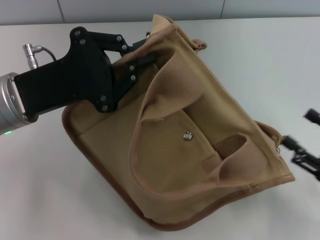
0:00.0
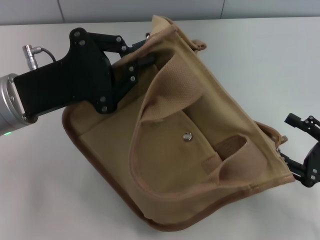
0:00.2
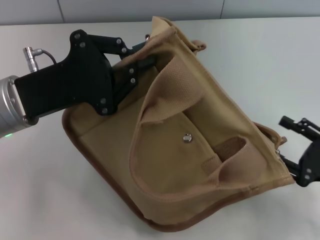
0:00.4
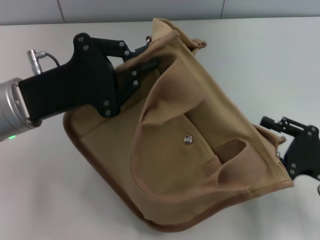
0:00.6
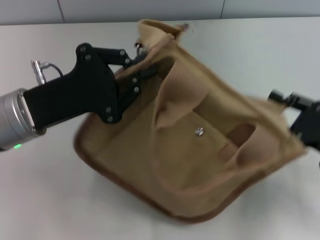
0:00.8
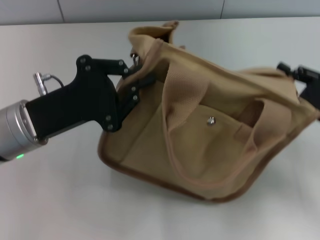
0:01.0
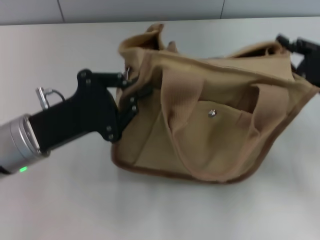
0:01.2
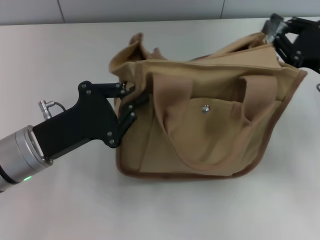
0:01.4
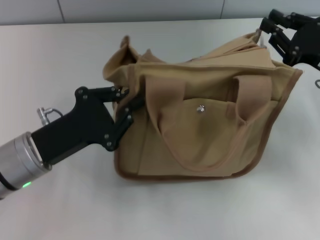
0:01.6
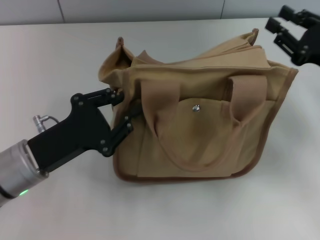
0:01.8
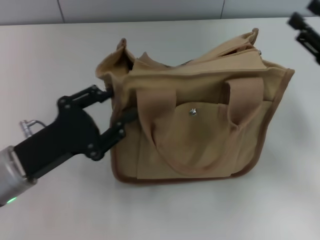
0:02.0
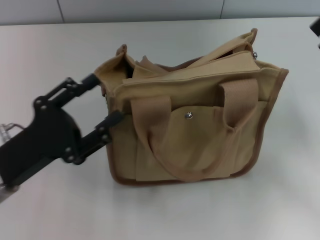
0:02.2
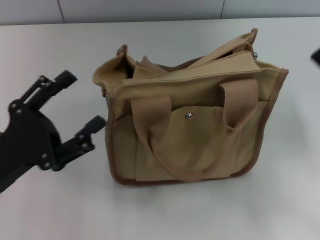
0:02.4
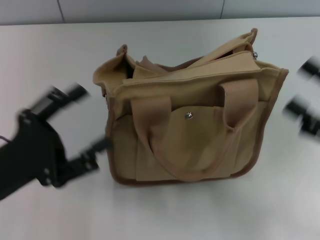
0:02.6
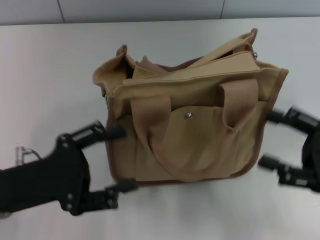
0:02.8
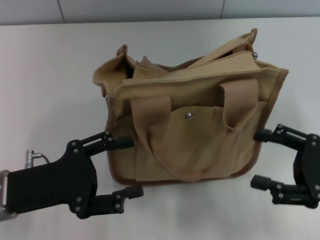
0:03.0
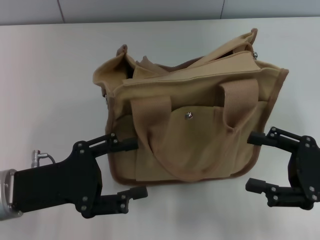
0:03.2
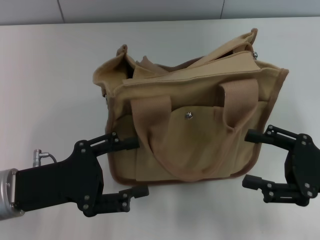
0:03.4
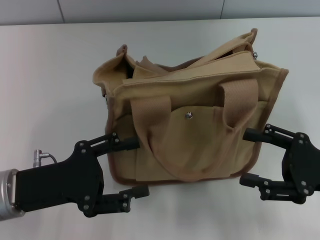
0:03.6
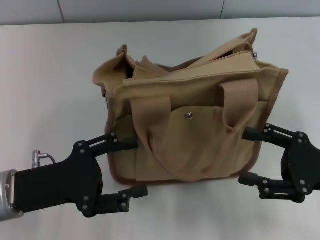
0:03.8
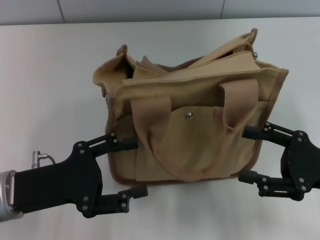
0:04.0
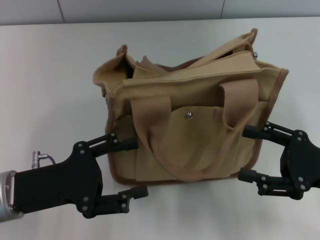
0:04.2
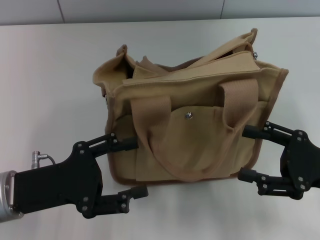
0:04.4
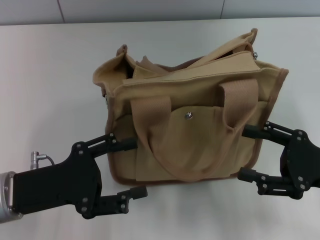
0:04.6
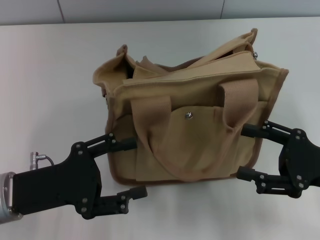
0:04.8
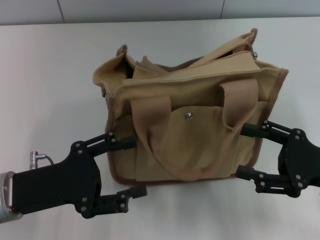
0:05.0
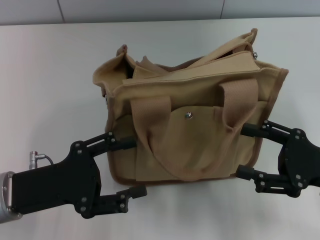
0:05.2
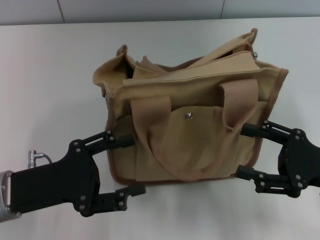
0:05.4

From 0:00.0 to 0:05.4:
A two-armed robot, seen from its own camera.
Step, from 0:00.0 to 0:02.2: Grab the bag with your left hand.
From 0:00.0 to 0:01.4: The left gripper heads downward, covering approximately 5 cm; the right gripper heads forward and upward, covering roughly 15 cm, and closes.
From 0:01.4 to 0:02.8: The right gripper is displaced backward by about 10 cm, and opens its fingers. The left gripper moves some 5 cm, and opens its fingers.
From 0:02.8 to 0:04.0: The grippers make only small movements.
From 0:04.0 to 0:05.4: The two grippers keep their place.

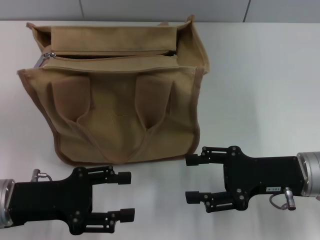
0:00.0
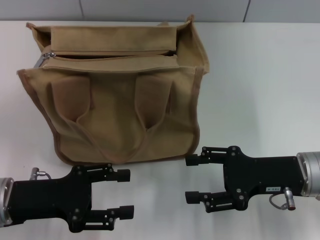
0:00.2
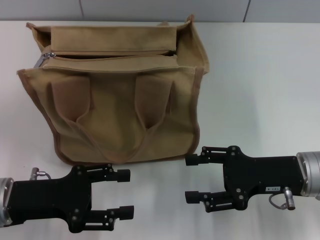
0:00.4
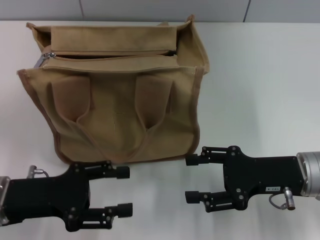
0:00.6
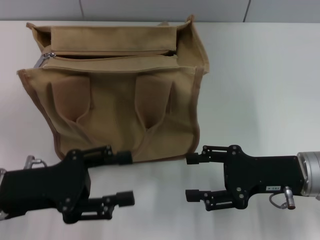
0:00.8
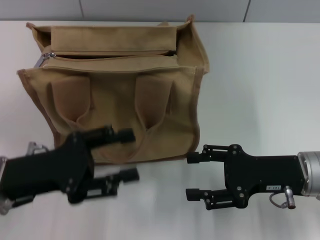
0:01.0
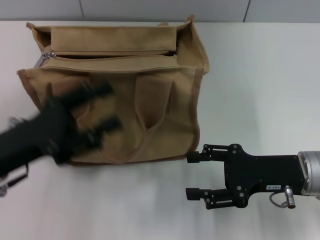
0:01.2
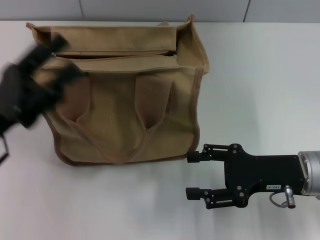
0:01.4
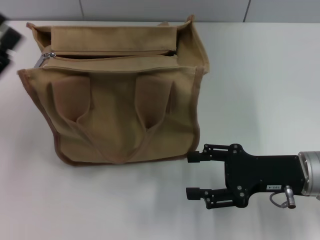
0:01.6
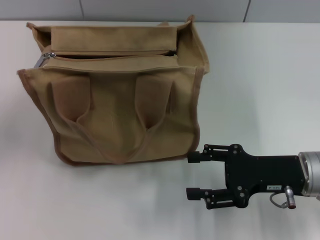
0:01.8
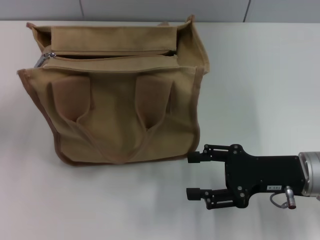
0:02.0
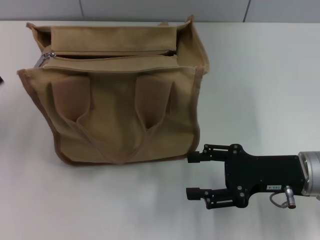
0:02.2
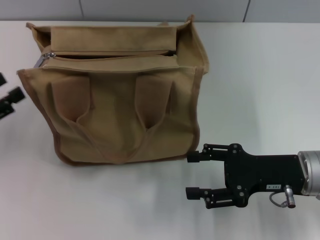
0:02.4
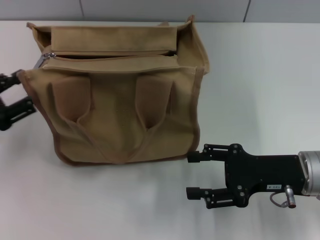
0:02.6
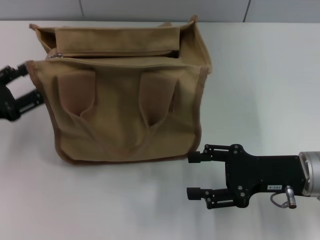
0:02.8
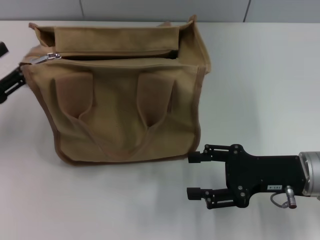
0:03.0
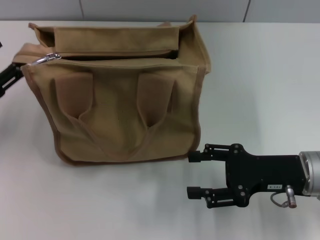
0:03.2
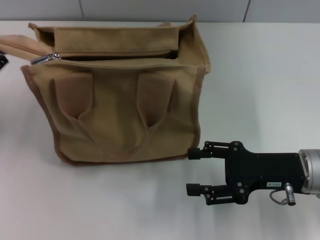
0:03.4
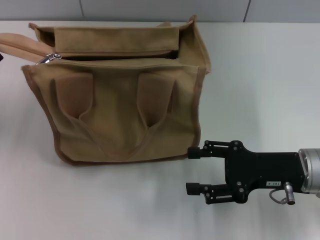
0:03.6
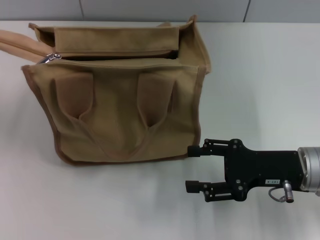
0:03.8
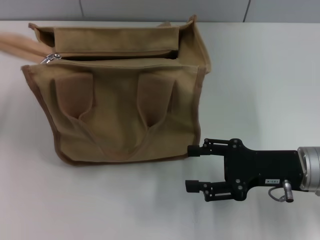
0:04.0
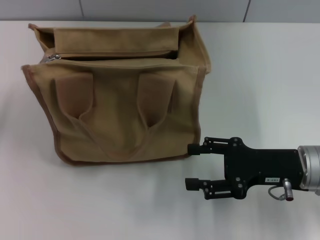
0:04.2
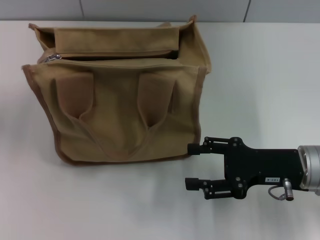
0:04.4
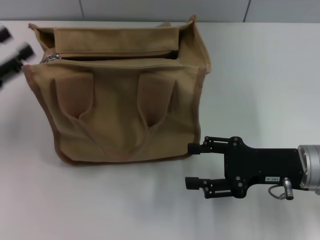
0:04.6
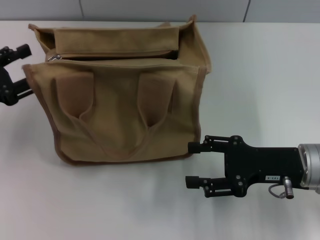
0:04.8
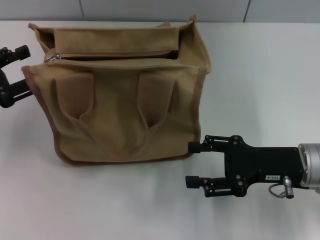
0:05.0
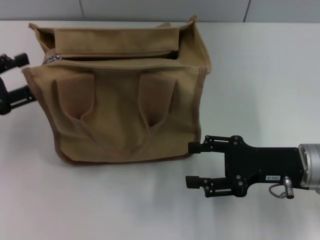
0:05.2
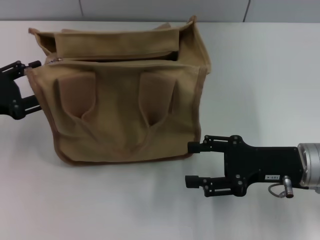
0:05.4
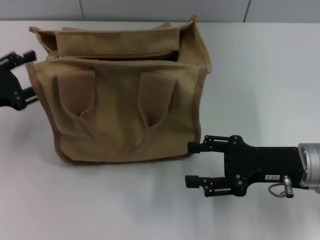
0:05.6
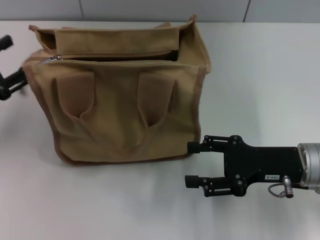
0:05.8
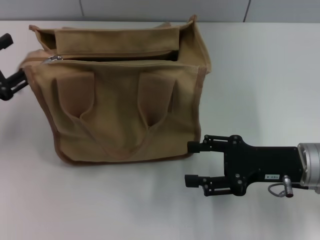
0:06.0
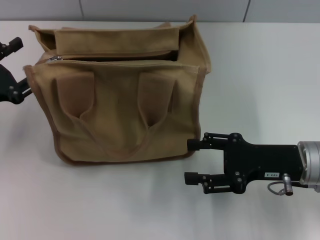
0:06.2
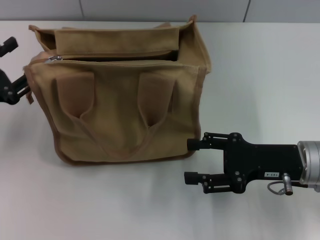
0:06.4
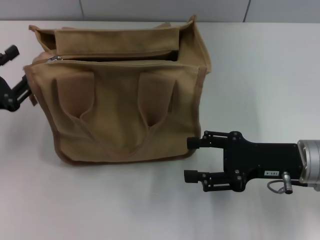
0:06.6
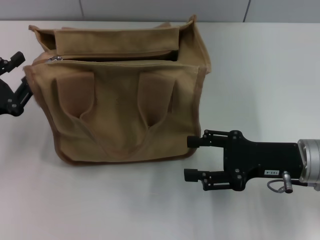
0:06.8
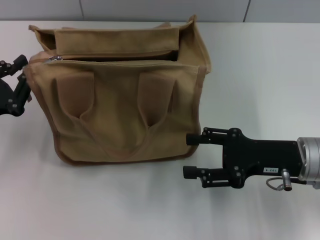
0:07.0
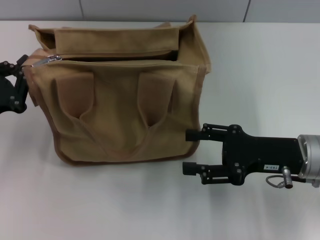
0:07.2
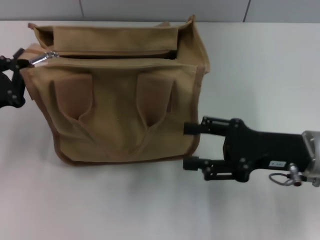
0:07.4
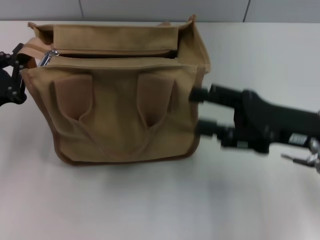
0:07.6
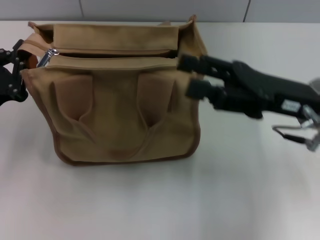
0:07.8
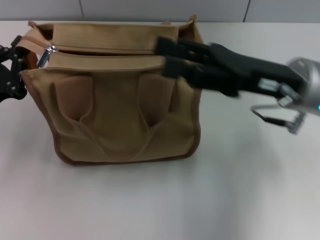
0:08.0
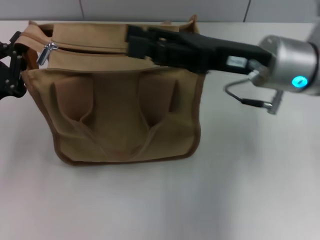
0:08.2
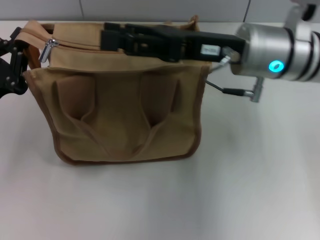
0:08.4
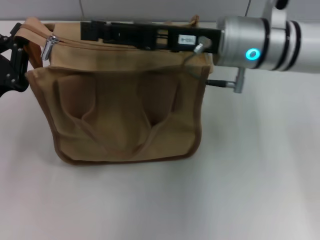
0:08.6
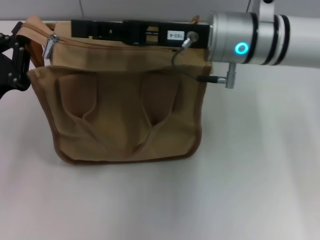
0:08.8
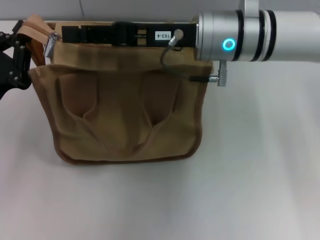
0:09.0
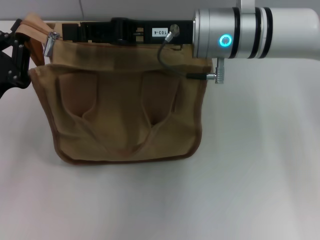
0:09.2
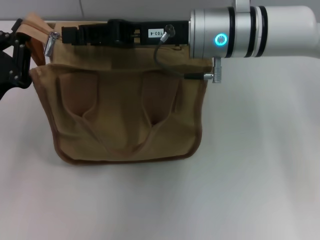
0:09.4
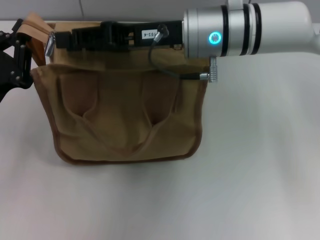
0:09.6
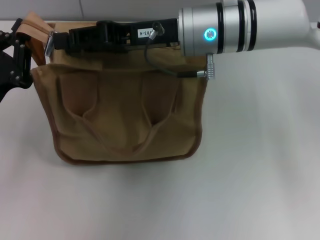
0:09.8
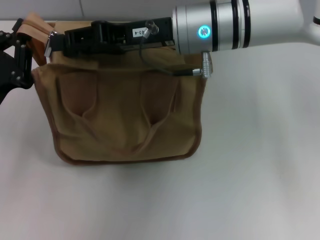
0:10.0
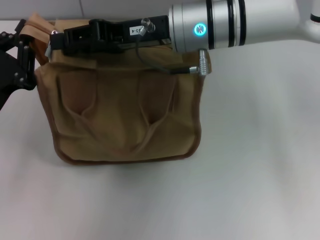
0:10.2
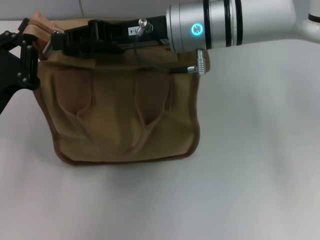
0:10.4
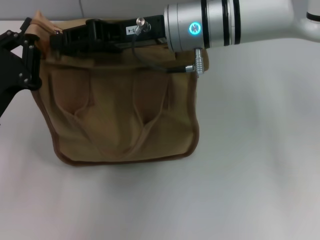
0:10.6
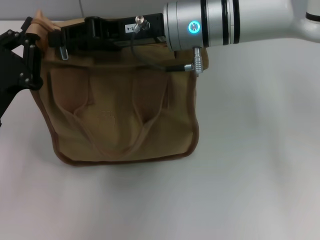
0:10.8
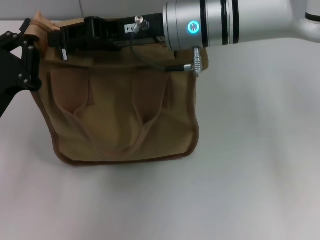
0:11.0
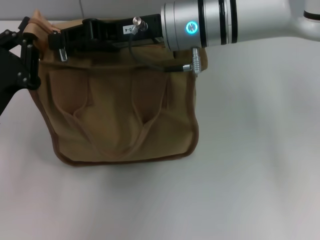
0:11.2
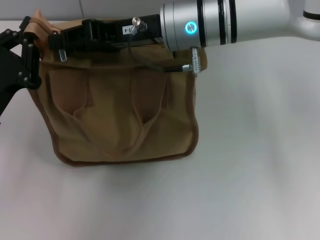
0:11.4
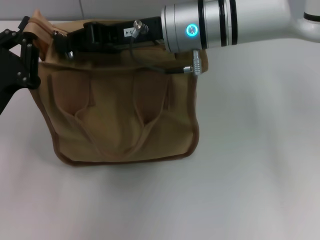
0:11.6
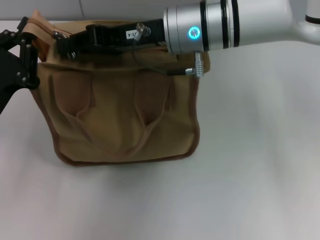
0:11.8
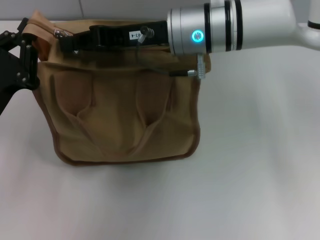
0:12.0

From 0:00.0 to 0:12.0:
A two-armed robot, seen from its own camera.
From 0:01.6 to 0:03.0: The left gripper moves to the left, some 5 cm.
From 0:06.0 to 0:07.6: The right gripper goes approximately 5 cm upward, while the left gripper closes its fingers.
From 0:07.6 to 0:09.0: The right gripper shifts approximately 20 cm to the left, forward and upward.
From 0:09.0 to 0:10.4: There are only small adjustments of the grippers.
From 0:10.4 to 0:12.0: The right gripper closes.

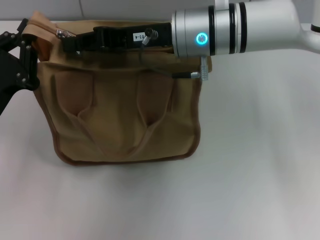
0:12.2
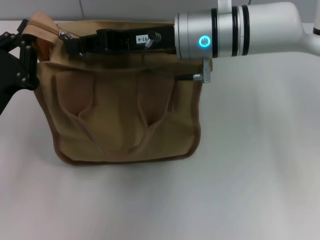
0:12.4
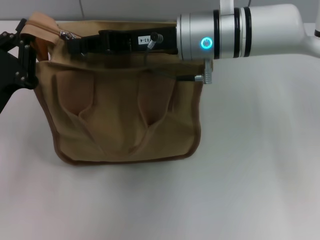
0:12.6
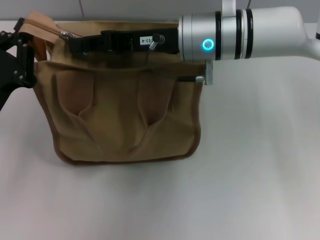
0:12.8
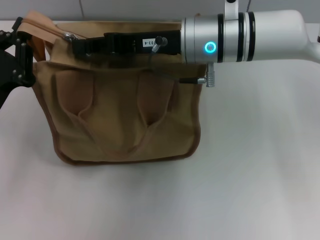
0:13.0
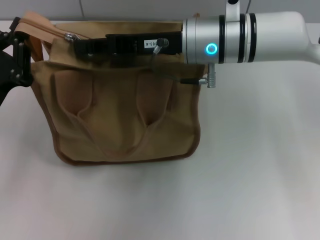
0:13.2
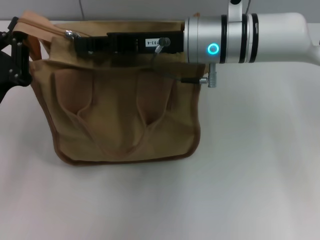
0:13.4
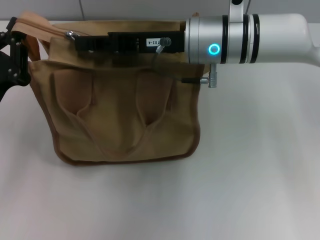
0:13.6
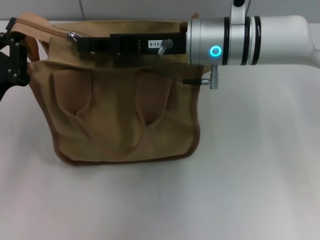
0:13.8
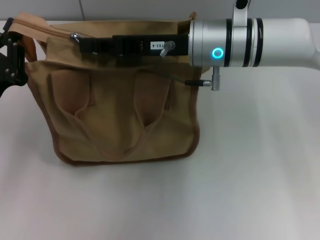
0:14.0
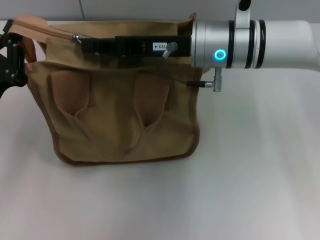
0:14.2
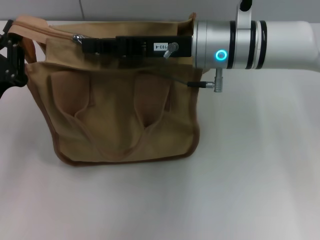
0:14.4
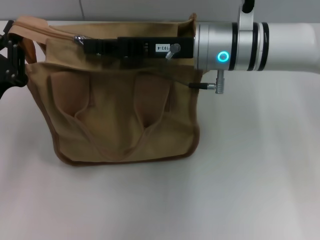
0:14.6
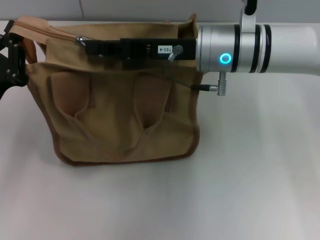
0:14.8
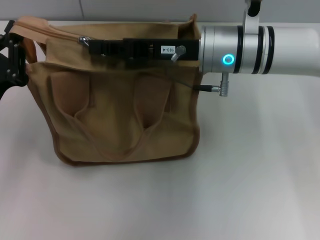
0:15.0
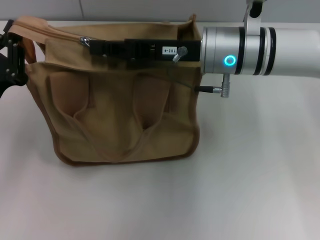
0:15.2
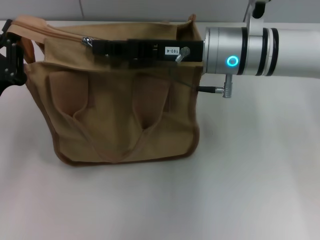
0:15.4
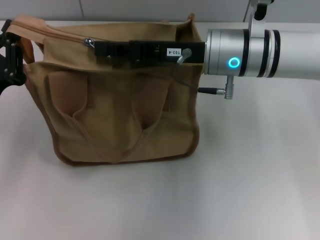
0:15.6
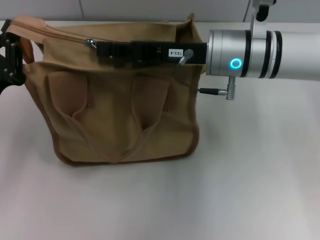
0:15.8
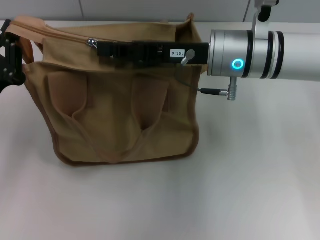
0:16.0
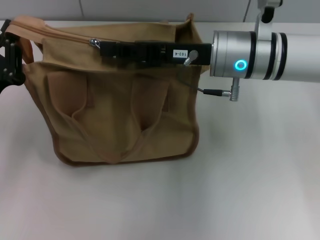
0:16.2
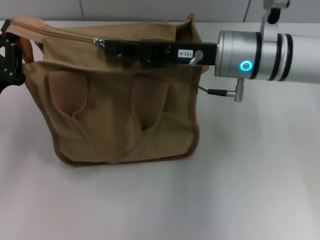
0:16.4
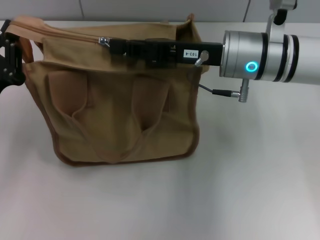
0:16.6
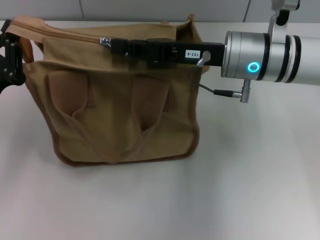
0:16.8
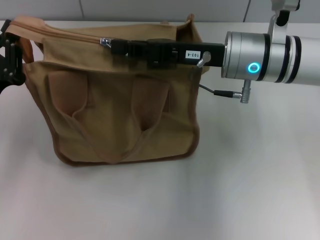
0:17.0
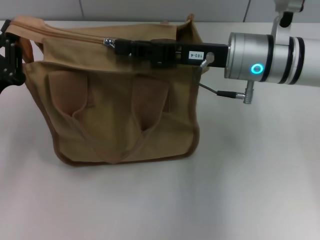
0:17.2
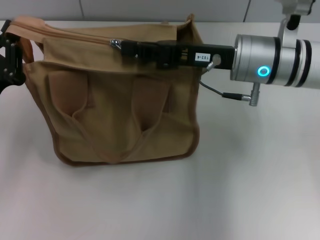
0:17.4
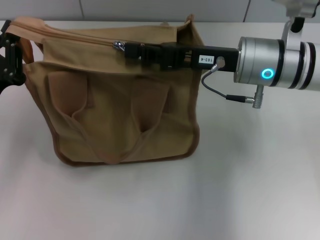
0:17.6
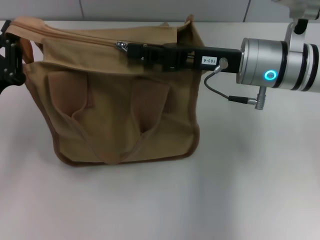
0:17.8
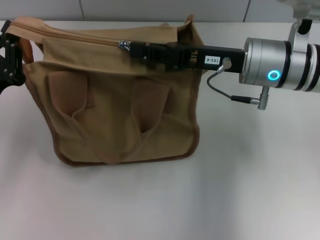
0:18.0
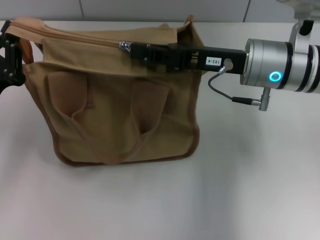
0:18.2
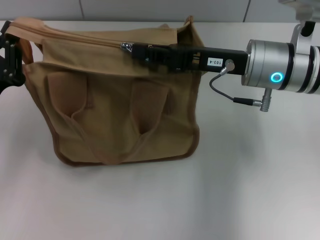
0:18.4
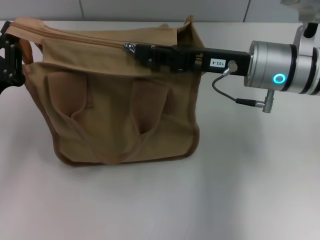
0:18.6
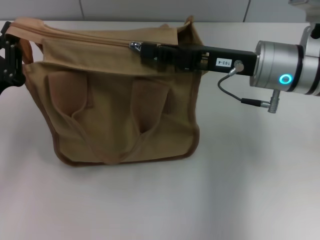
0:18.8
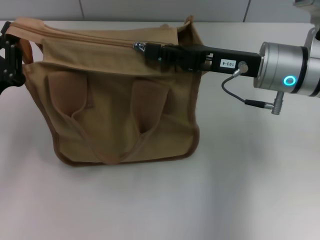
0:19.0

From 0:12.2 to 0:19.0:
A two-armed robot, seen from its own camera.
From 0:12.2 to 0:16.2: There are only small adjustments of the grippers.
From 0:16.2 to 0:19.0: The grippers move only a little.
